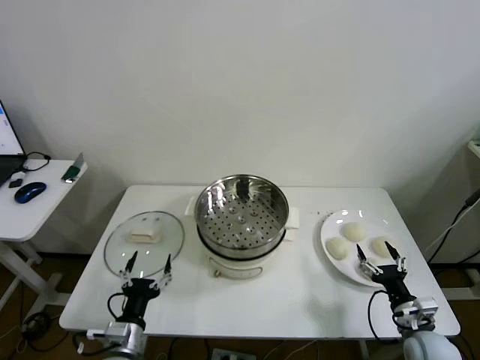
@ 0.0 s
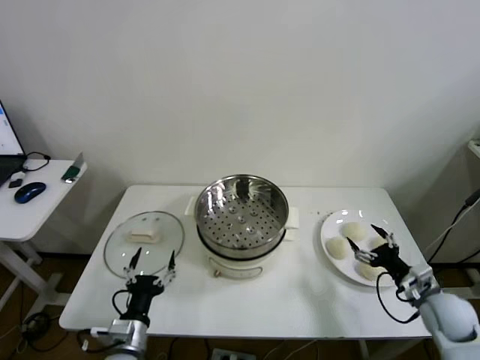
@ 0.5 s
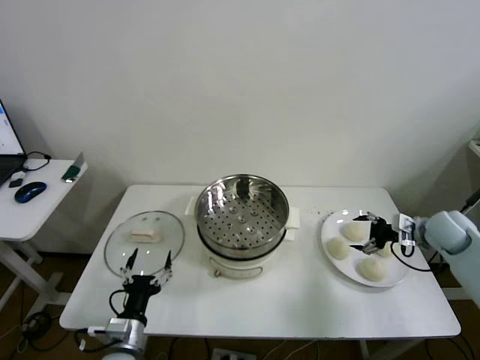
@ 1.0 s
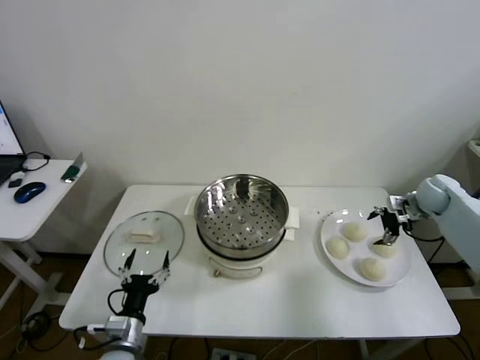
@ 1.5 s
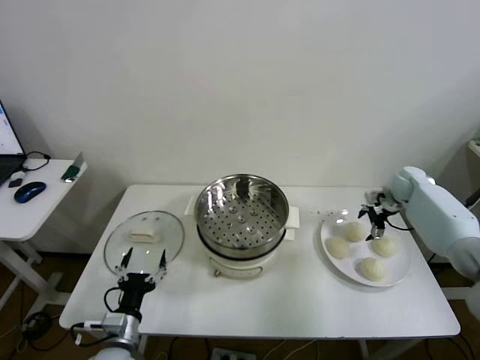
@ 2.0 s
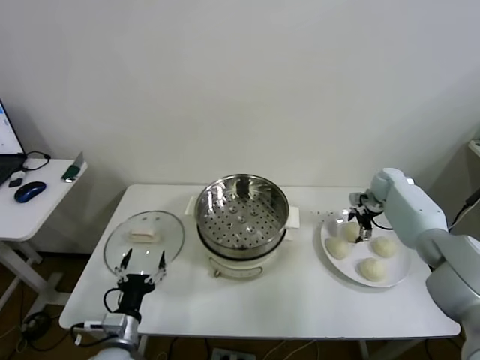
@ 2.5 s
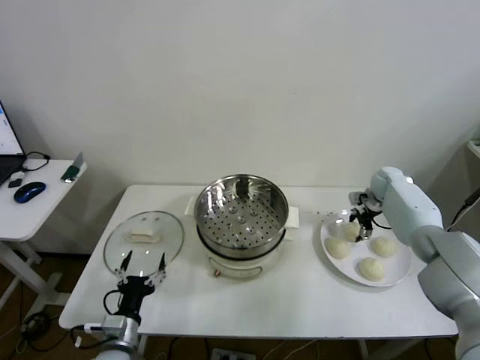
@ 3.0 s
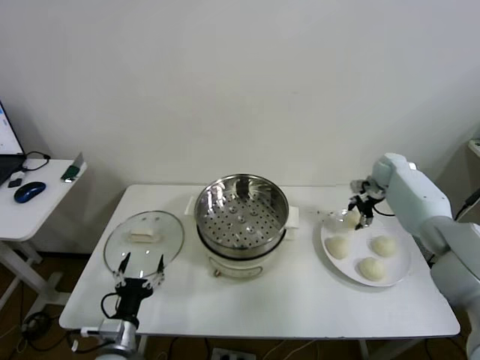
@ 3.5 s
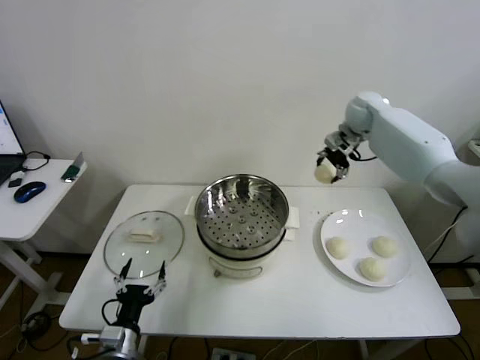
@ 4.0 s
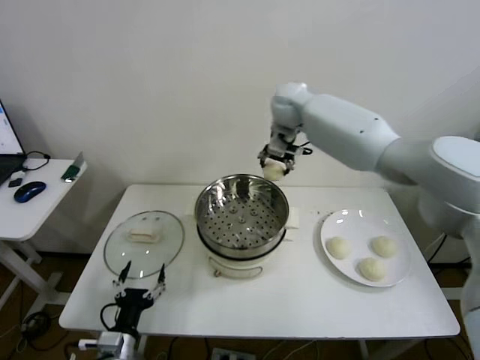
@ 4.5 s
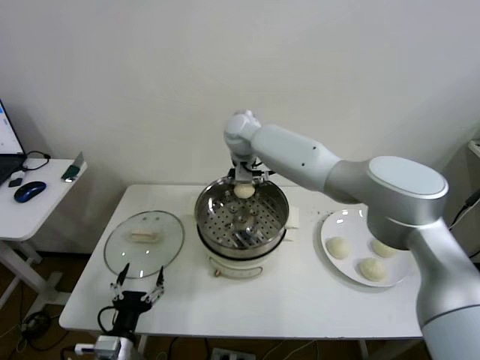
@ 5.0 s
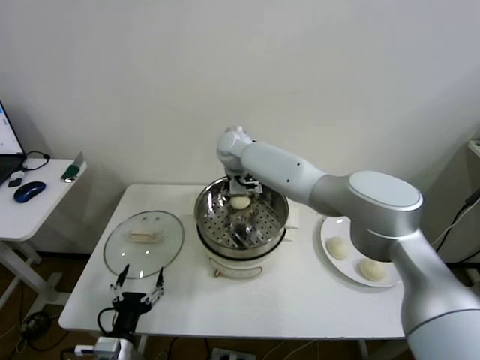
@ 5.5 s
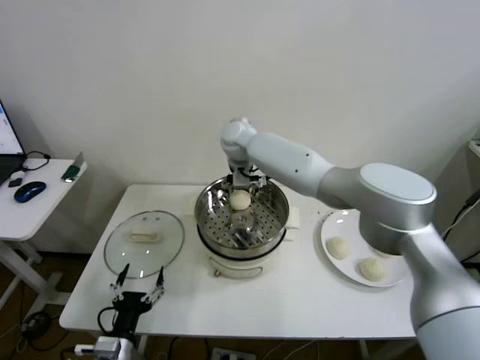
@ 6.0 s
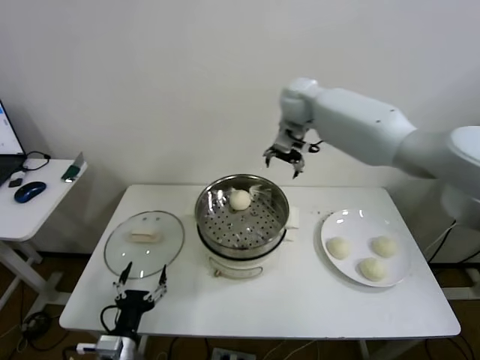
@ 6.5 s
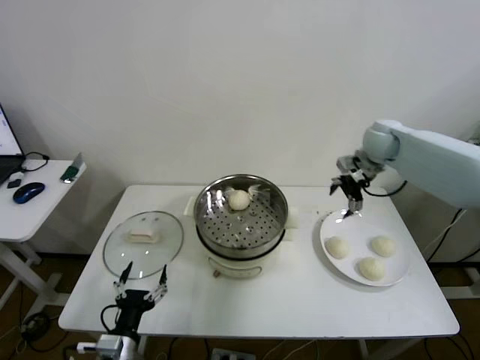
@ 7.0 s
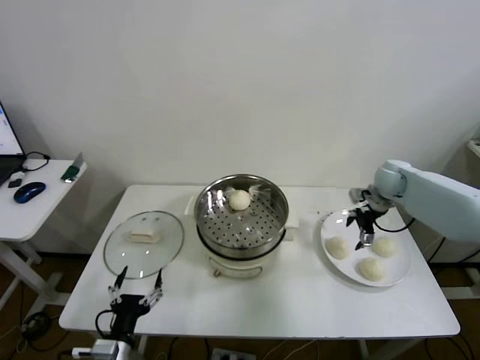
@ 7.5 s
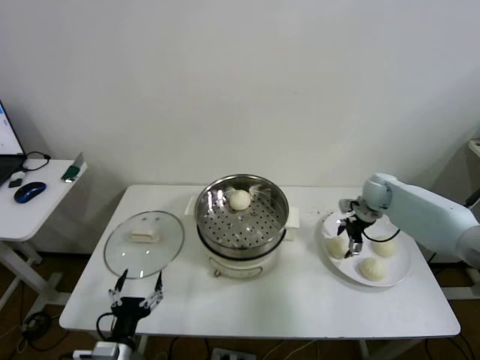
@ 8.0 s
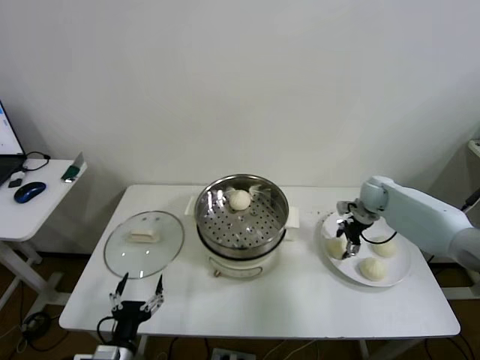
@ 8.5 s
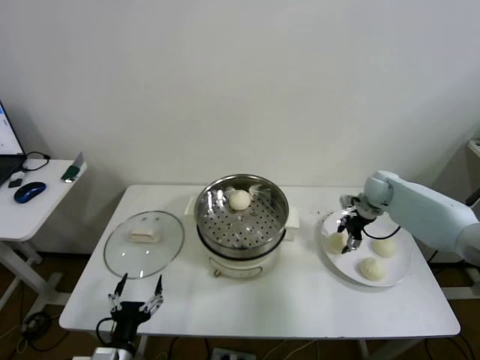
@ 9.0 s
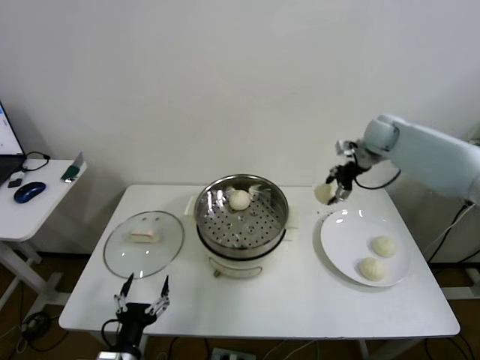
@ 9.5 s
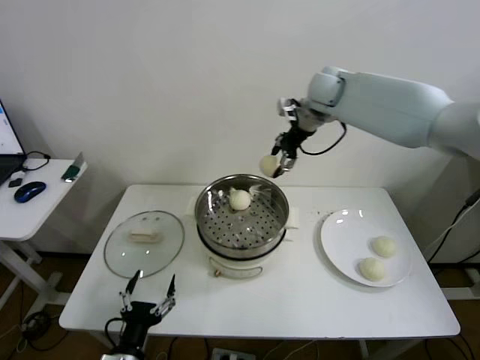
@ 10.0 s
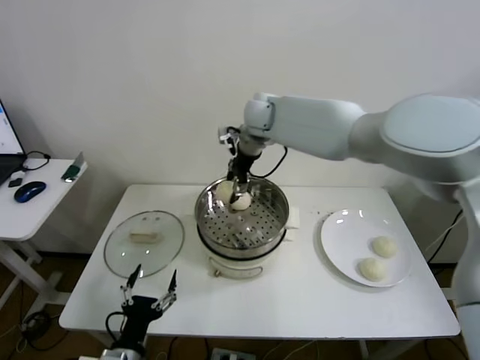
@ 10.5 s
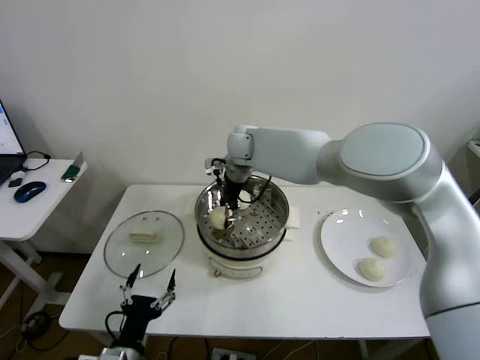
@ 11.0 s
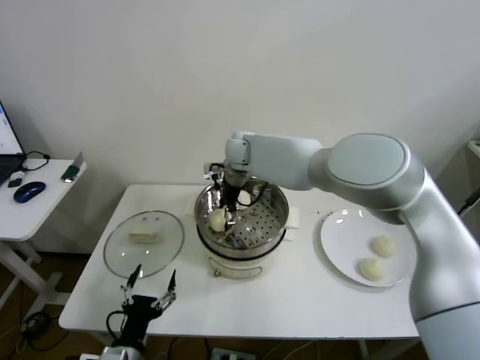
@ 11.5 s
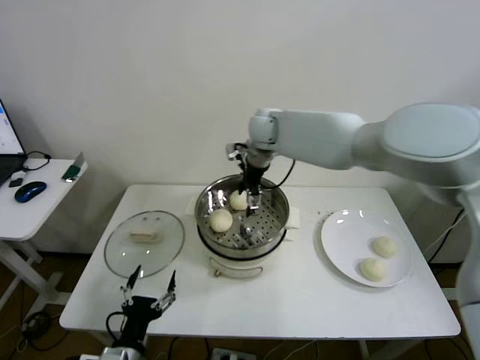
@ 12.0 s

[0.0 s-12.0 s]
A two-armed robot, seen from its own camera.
Step, 0.0 to 2.5 s: Grasp the baozi in the plate with right gripper.
Step, 3.0 to 5.5 s: Place the baozi on the steamer with right gripper.
Step, 6.0 to 8.5 s: Grasp the baozi in the plate with right gripper.
Step, 9.0 to 11.5 s: Place the baozi on the steamer with right gripper.
2.0 to 4.0 s: The right gripper travels upward and to the left by approximately 30 cm, and closes.
4.0 to 6.0 s: The right gripper heads to the left, covering approximately 25 cm, and opens its fingers.
6.0 to 8.0 s: The right gripper goes some 40 cm to the right and downward.
8.0 to 10.0 s: The right gripper shifts roughly 35 cm upward and to the left, and closes its fingers.
10.0 to 12.0 s: The right gripper heads to the left and downward, covering some 10 cm, and opens up.

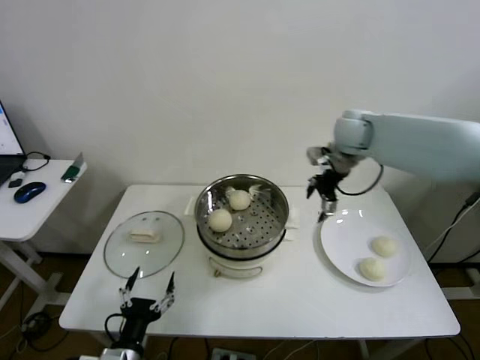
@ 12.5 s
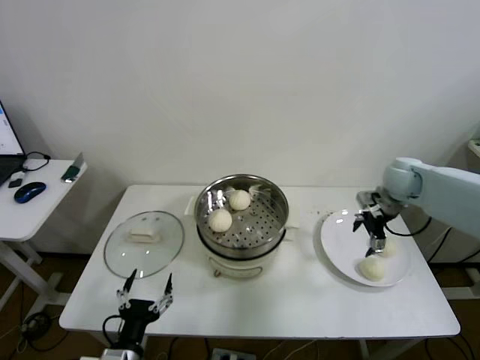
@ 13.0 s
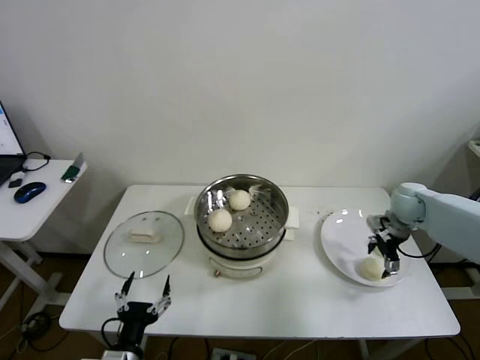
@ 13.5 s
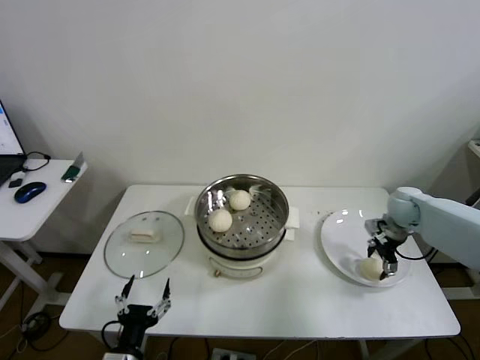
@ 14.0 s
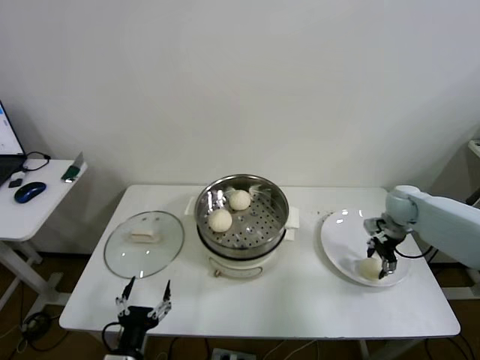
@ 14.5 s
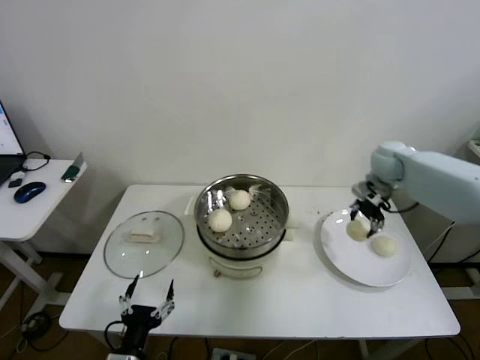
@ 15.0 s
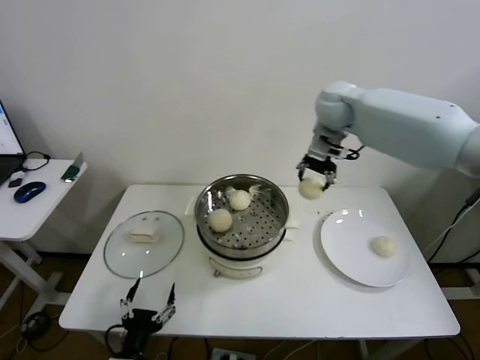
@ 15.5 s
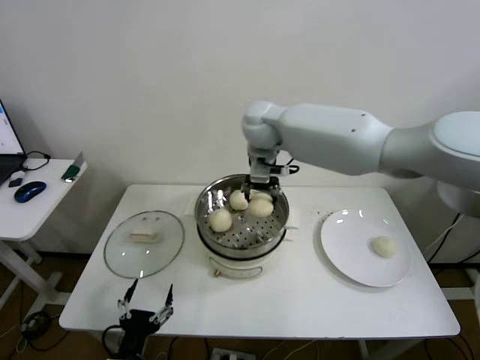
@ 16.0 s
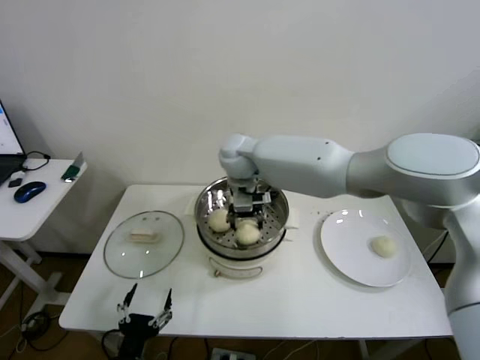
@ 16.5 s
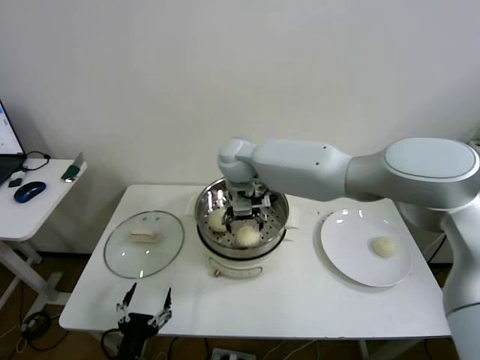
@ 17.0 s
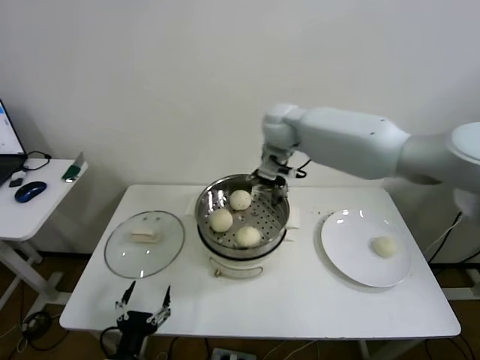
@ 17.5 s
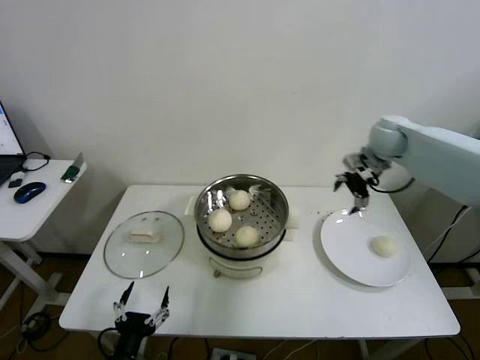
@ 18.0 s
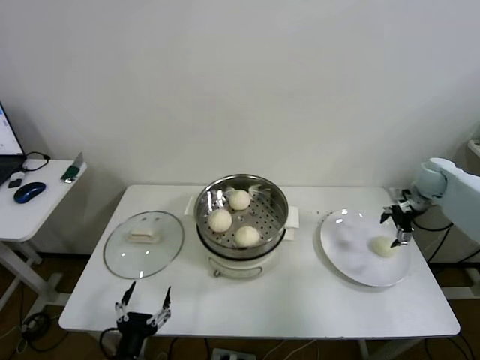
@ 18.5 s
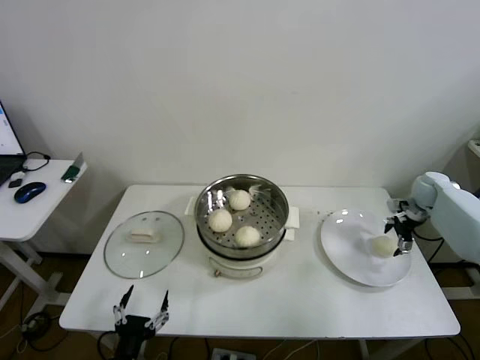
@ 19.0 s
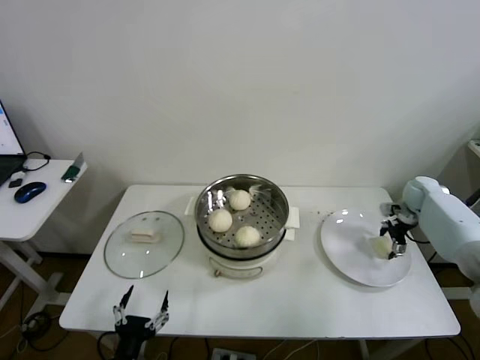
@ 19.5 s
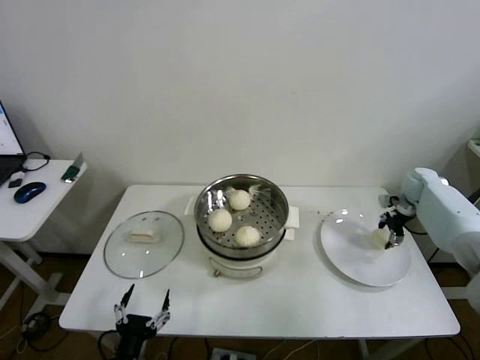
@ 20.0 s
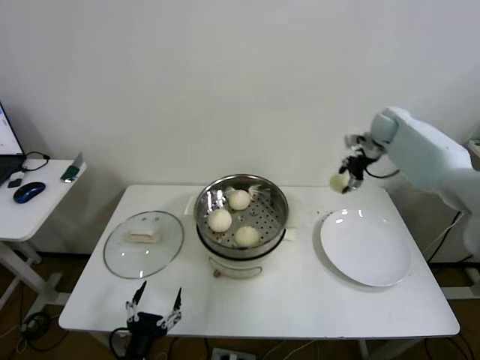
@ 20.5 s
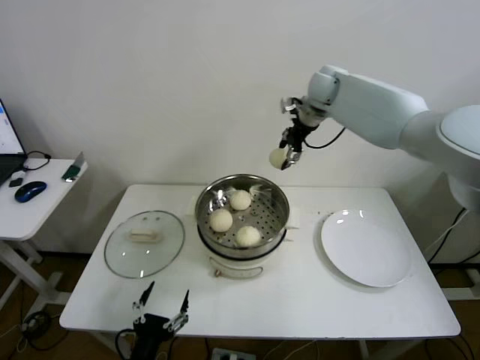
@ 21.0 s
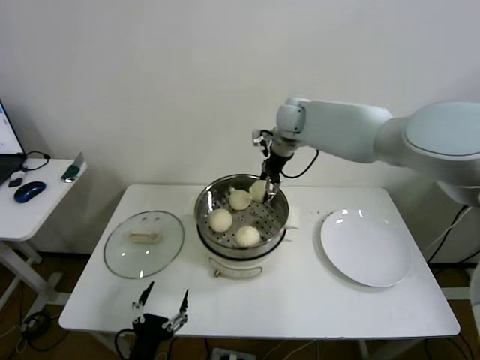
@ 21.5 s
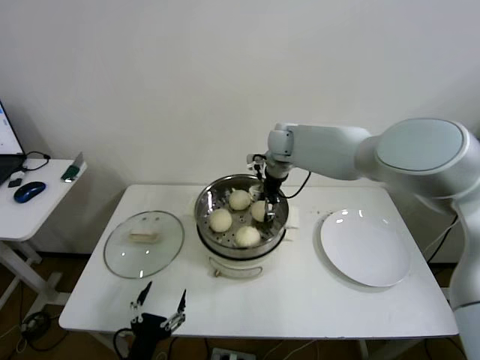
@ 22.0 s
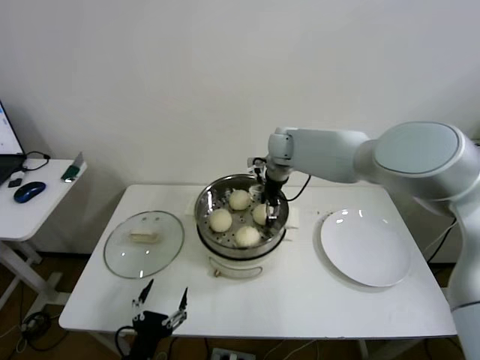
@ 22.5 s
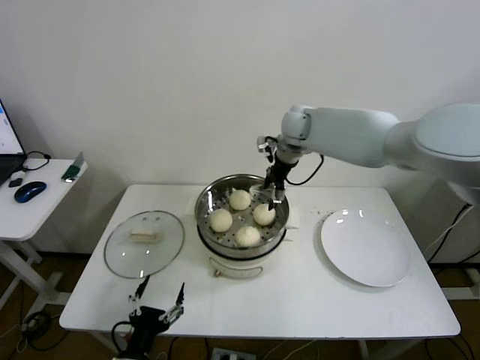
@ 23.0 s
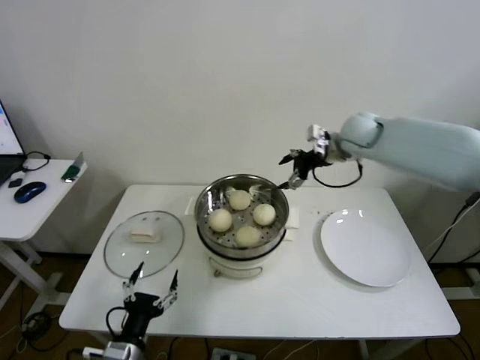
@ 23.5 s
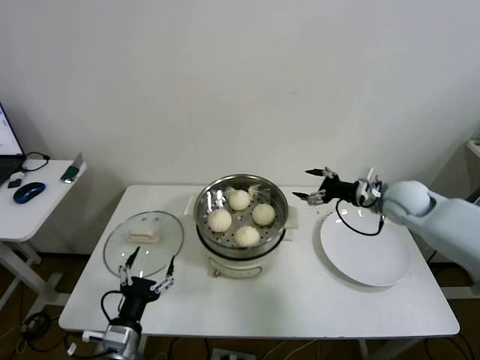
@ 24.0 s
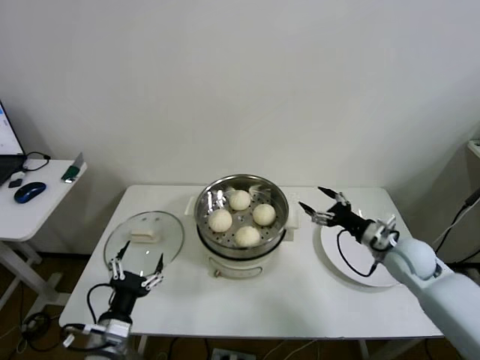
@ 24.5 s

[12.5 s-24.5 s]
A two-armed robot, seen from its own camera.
Step, 12.5 to 14.0 s: Grasp the baozi in the plate with right gripper.
Step, 14.5 to 17.0 s: Place the baozi on the steamer with right gripper.
Step, 17.5 to 19.5 s: Grasp the baozi in the plate with right gripper.
Step, 20.0 to 22.5 s: Place the baozi on the steamer with right gripper.
12.5 to 14.5 s: The right gripper heads downward and to the right, covering about 25 cm, and closes up.
14.5 to 16.5 s: The right gripper heads to the left, covering approximately 40 cm.
16.5 to 18.5 s: The right gripper moves to the right, some 50 cm, and opens its fingers.
18.5 to 20.5 s: The right gripper is displaced to the left, forward and upward by about 20 cm, and closes up.
20.5 to 22.5 s: The right gripper goes about 25 cm to the left, and opens up.
22.5 to 24.5 s: The left gripper travels forward by about 5 cm. The right gripper moves to the right, backward and downward, roughly 40 cm.

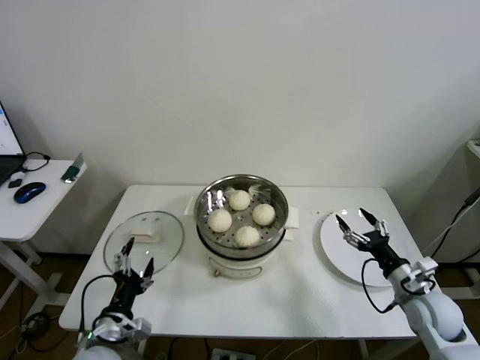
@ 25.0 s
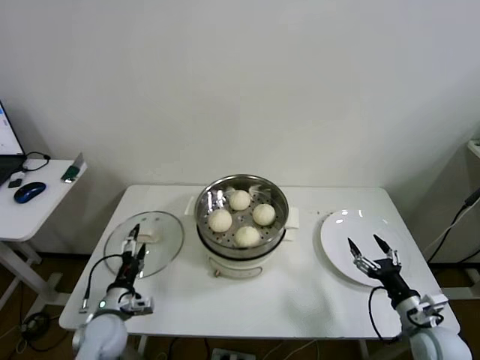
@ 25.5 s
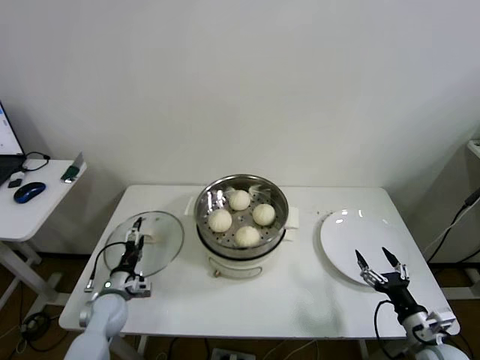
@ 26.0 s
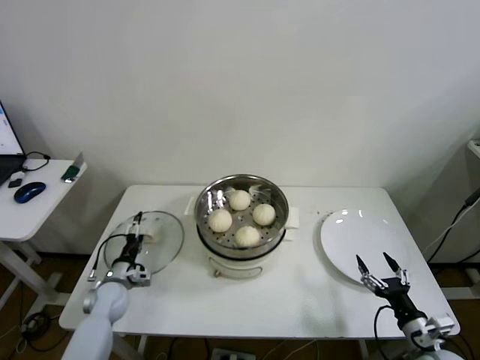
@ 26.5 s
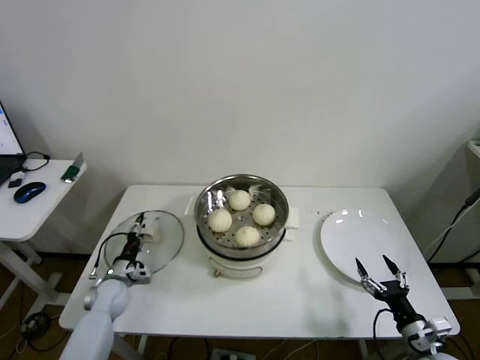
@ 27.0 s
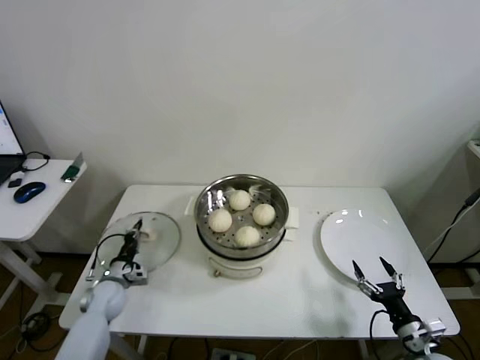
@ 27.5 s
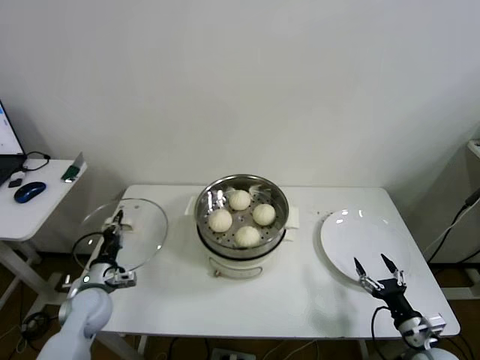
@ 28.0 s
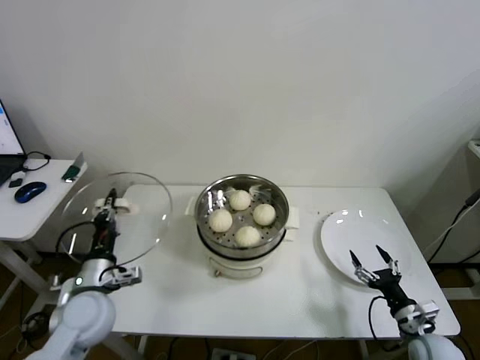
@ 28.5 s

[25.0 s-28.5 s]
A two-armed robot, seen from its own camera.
Step, 25.0 to 27.0 s: Grasp the pot lid with left gripper.
25.0 to 27.0 s: The left gripper moves forward, downward and to the left, approximately 25 cm. Meanwhile the right gripper goes roughly 15 cm backward and downward.
27.0 to 28.5 s: The left gripper moves upward and backward, approximately 20 cm, and closes up.
